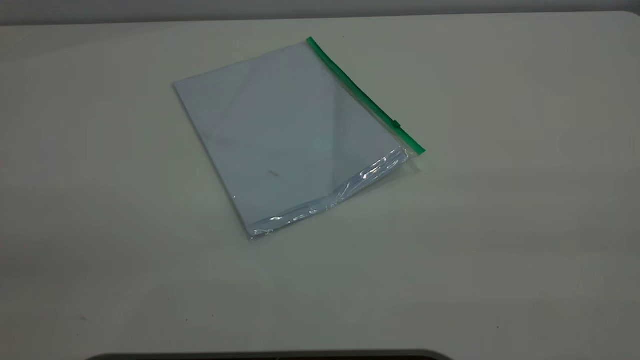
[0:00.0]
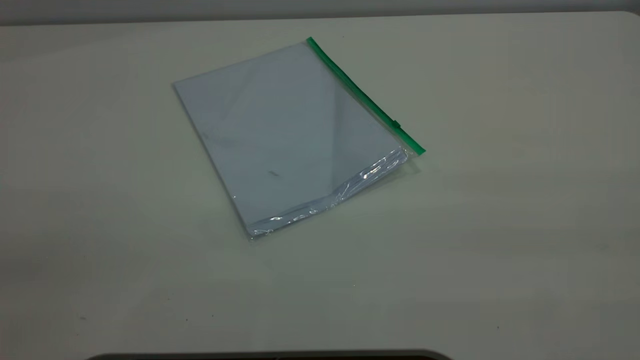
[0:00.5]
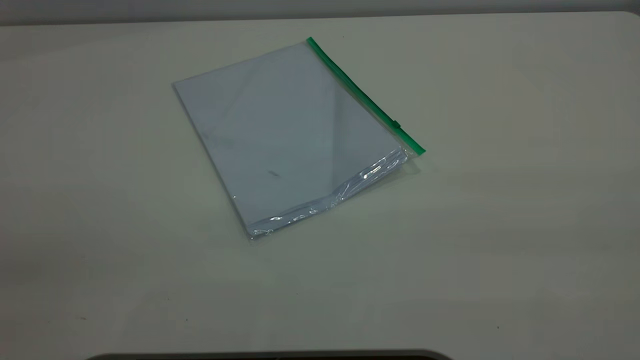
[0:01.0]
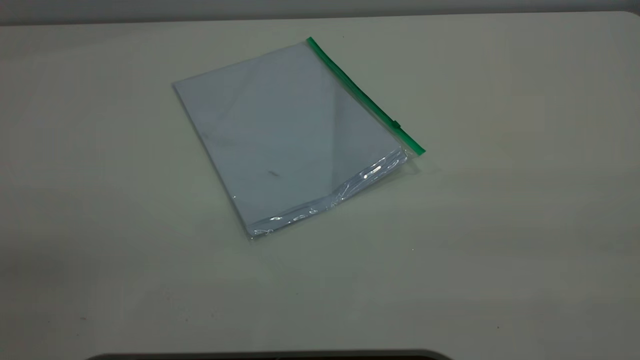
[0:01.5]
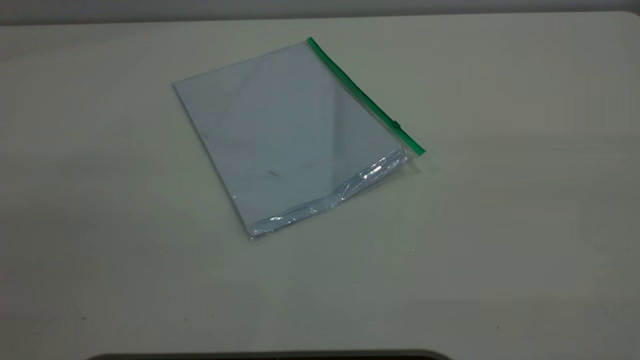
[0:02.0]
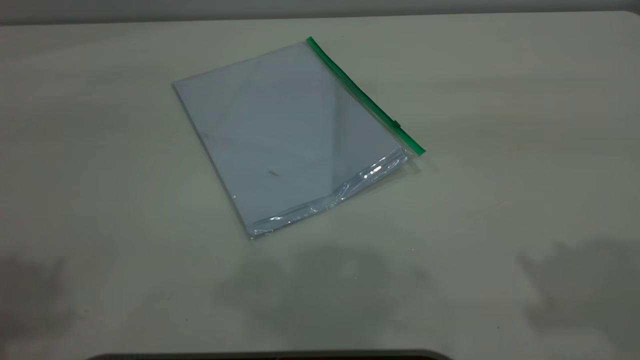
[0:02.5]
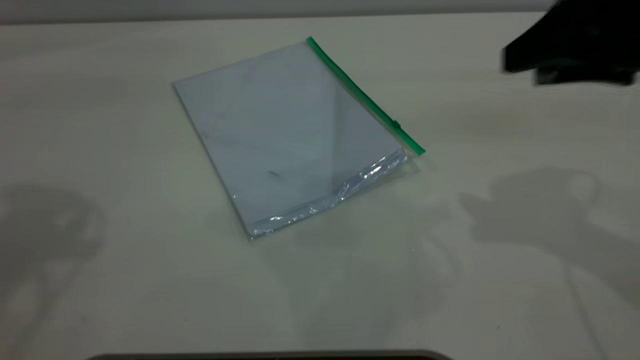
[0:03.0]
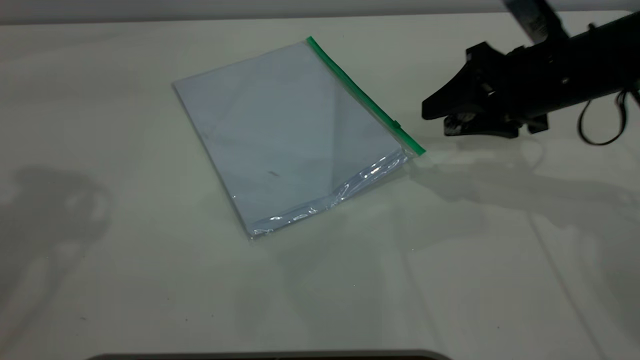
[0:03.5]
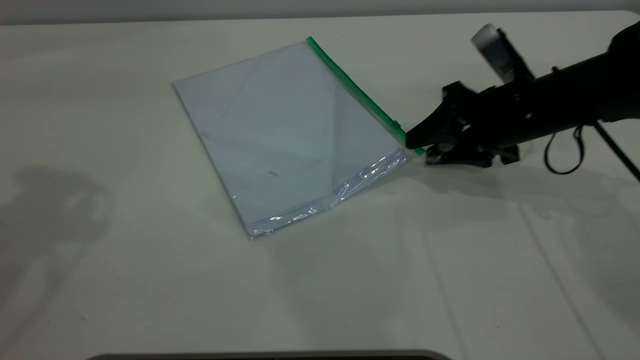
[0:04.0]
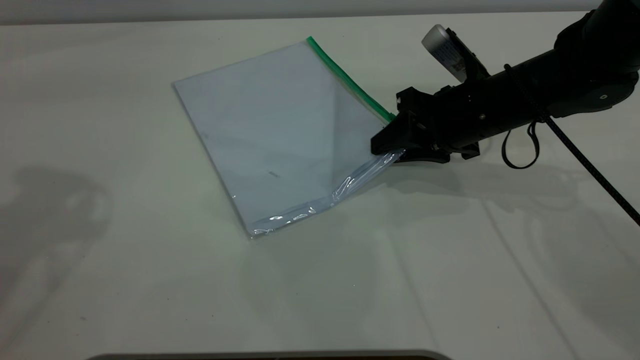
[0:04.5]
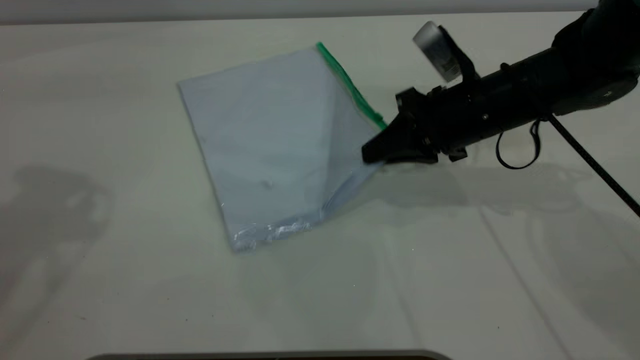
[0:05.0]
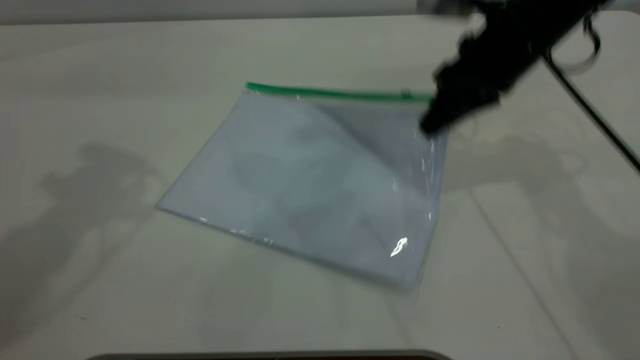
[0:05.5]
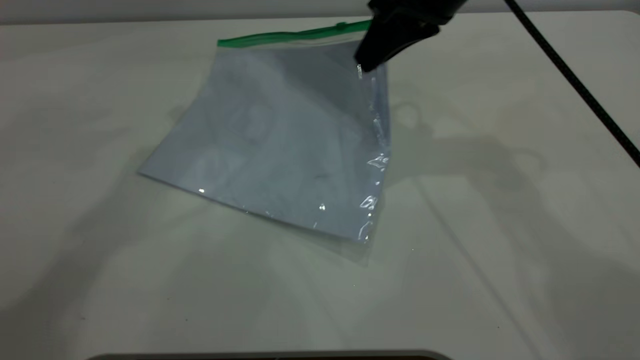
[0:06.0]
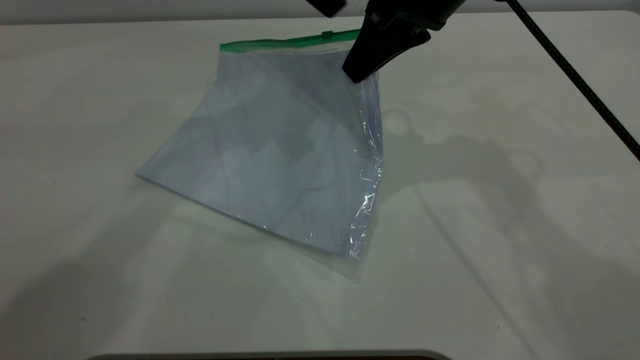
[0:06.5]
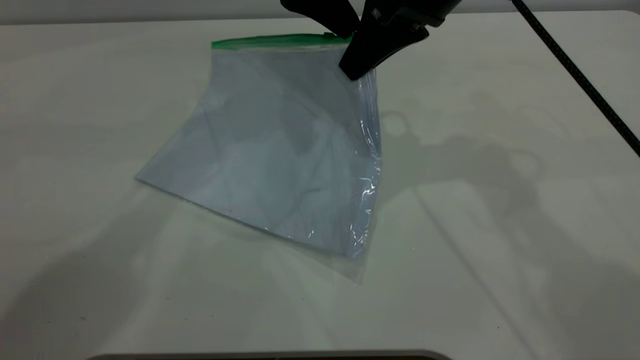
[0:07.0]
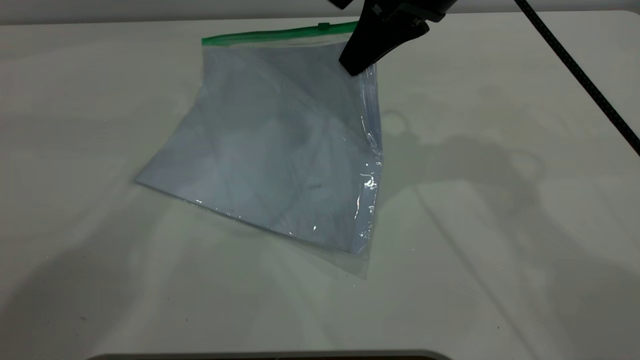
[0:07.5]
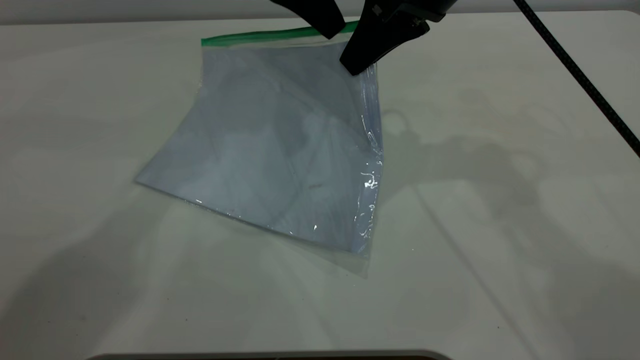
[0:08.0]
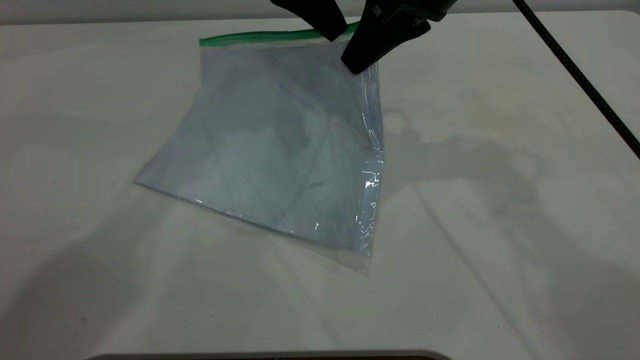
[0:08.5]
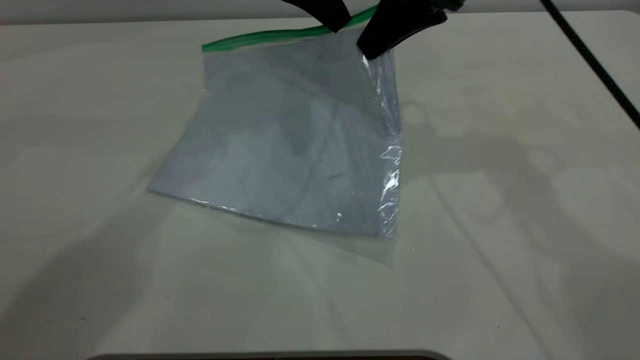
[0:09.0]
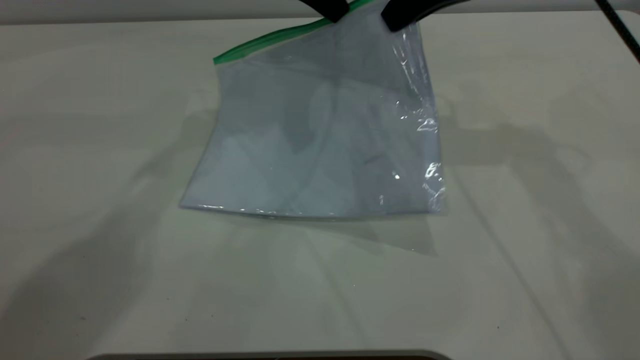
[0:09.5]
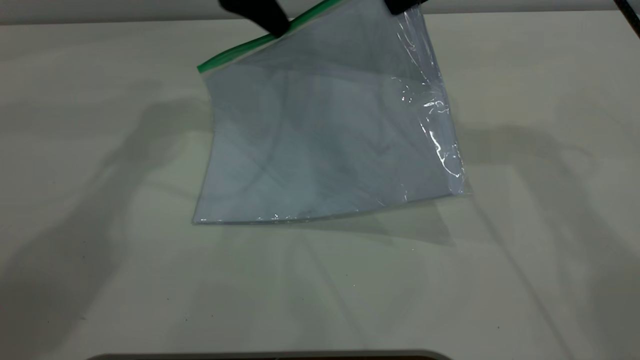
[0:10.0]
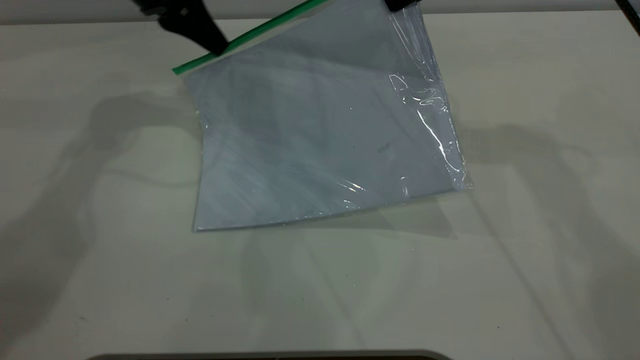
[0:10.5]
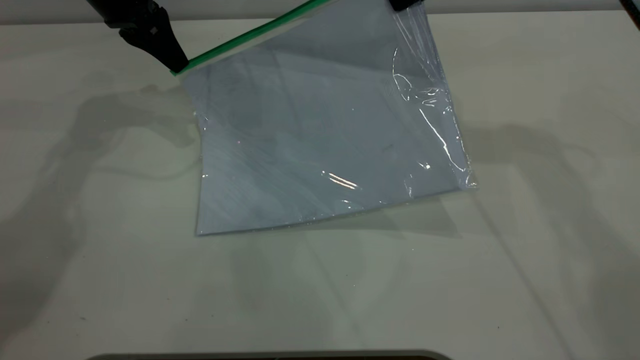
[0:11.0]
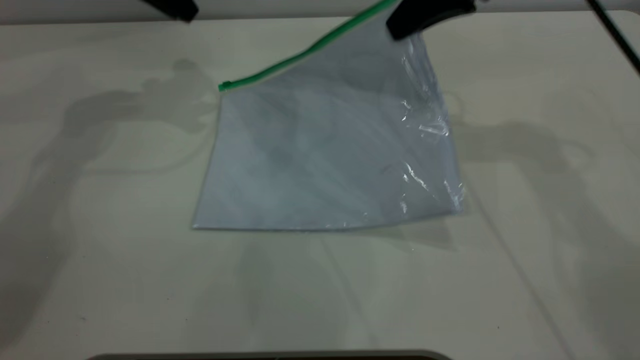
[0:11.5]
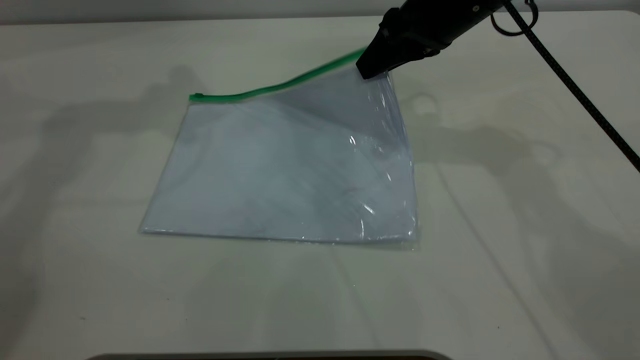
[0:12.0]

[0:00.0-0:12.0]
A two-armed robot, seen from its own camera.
Step, 0:00.0 to 0:04.5: Pick up the transparent plastic bag with the right gripper.
Step, 0:05.5 to 0:11.0: Pulling up the zipper on the transparent plastic bag with the left gripper to close it.
0:02.0 to 0:04.0: The right gripper heads downward and forward, covering approximately 50 cm.
0:04.0 to 0:06.0: The left gripper shifts roughly 20 cm to the right and forward; the right gripper shifts roughly 20 cm upward and to the left, and closes.
0:06.0 to 0:08.0: The left gripper goes roughly 10 cm to the right and downward.
0:08.0 to 0:10.0: The left gripper travels to the left by roughly 5 cm, and closes its fingers, while the right gripper goes about 5 cm to the right.
0:10.0 to 0:12.0: The left gripper is displaced upward and to the left by about 20 cm, and opens; the right gripper goes roughly 5 cm downward, and opens.
